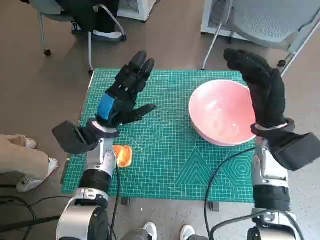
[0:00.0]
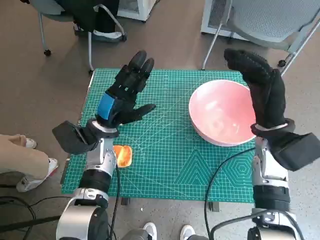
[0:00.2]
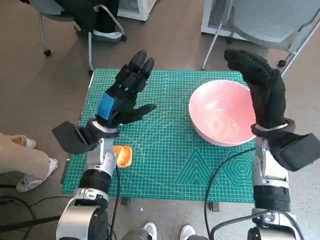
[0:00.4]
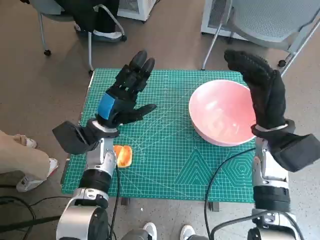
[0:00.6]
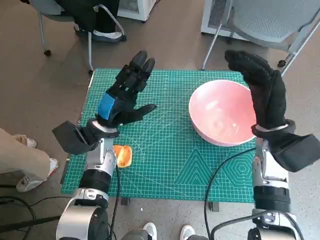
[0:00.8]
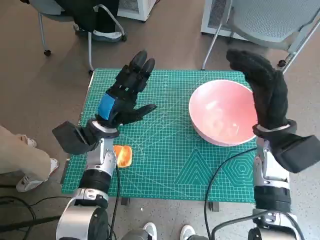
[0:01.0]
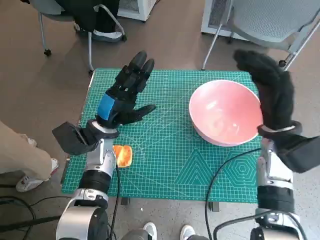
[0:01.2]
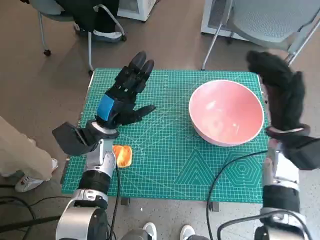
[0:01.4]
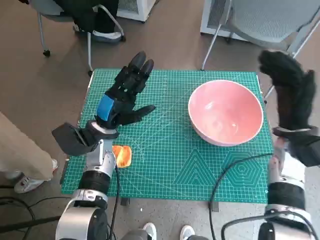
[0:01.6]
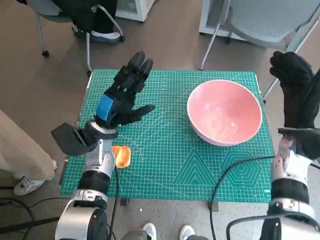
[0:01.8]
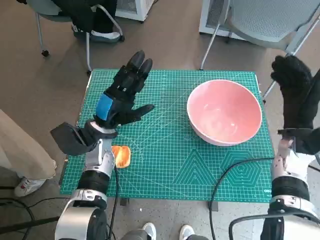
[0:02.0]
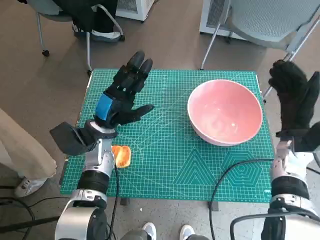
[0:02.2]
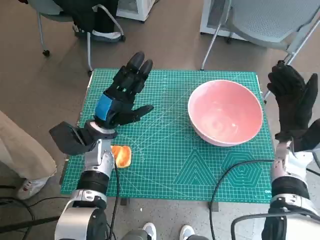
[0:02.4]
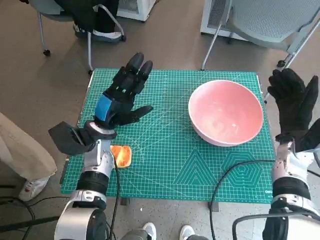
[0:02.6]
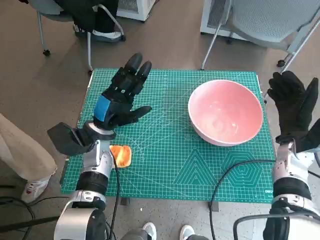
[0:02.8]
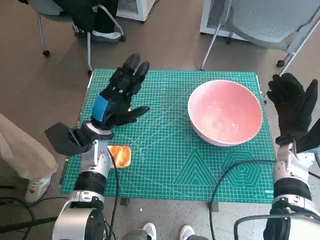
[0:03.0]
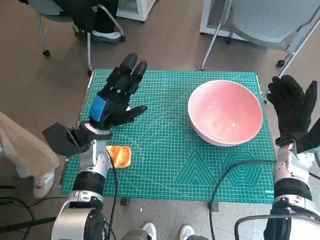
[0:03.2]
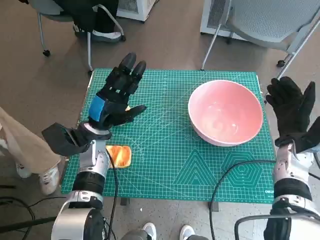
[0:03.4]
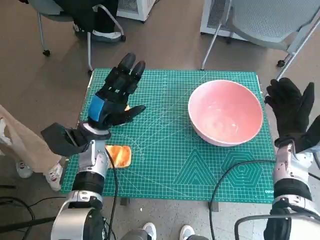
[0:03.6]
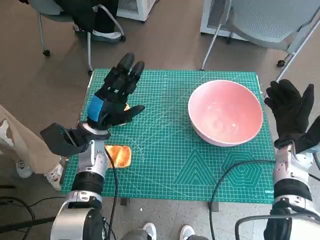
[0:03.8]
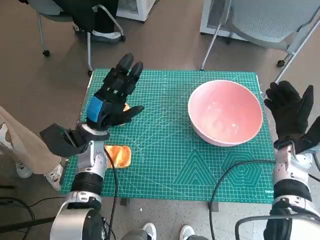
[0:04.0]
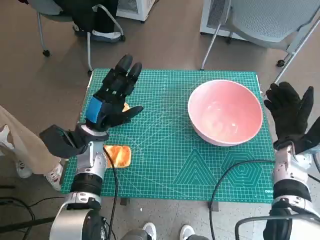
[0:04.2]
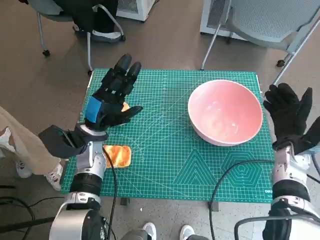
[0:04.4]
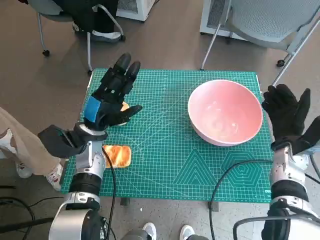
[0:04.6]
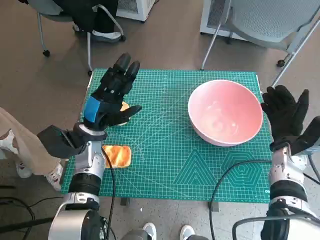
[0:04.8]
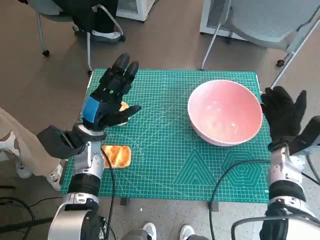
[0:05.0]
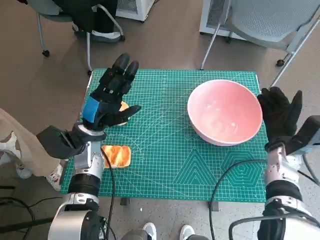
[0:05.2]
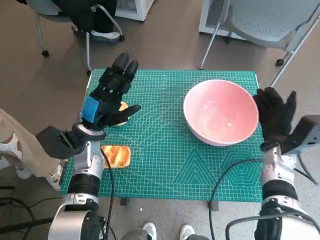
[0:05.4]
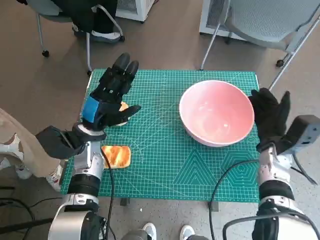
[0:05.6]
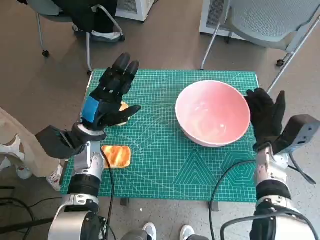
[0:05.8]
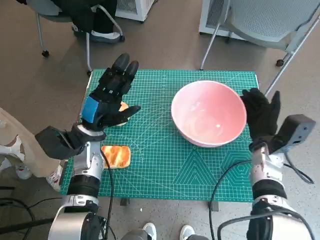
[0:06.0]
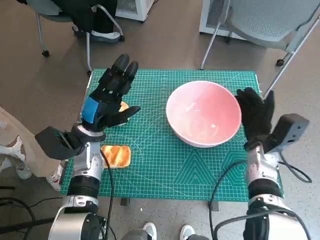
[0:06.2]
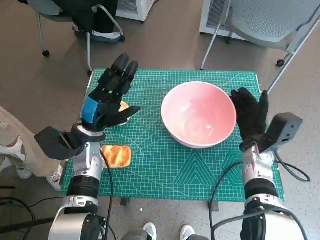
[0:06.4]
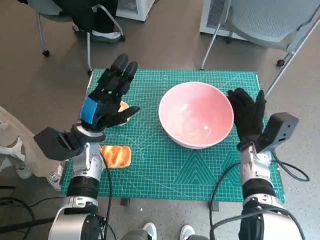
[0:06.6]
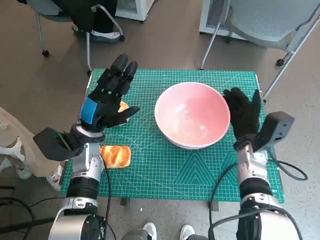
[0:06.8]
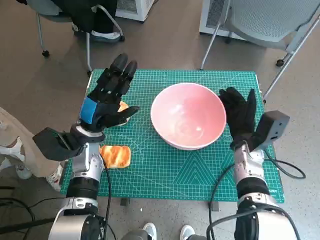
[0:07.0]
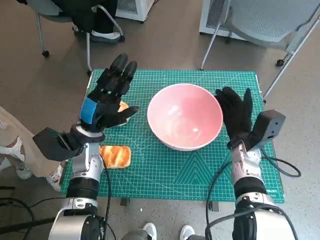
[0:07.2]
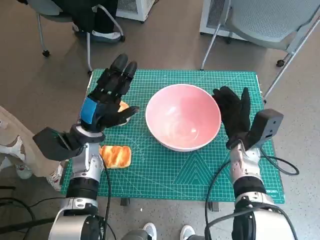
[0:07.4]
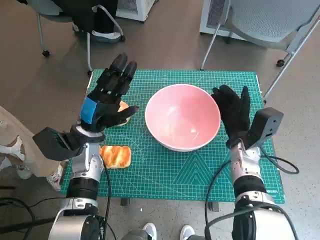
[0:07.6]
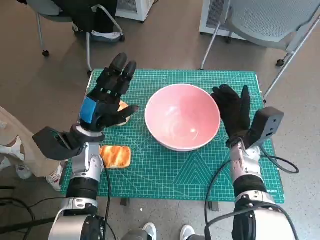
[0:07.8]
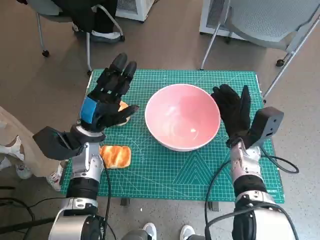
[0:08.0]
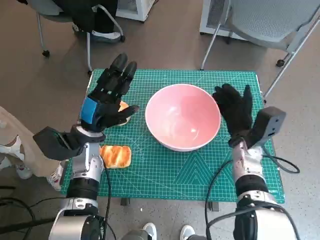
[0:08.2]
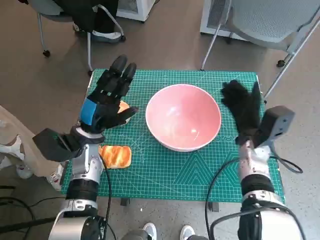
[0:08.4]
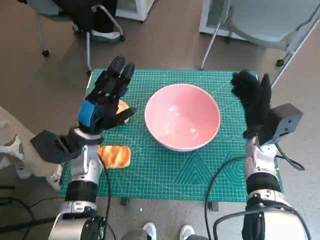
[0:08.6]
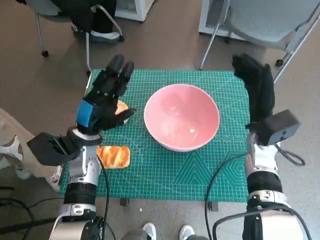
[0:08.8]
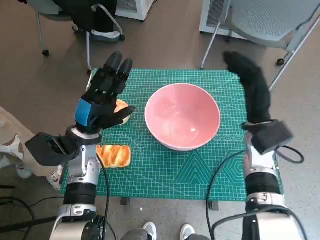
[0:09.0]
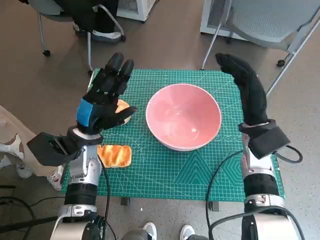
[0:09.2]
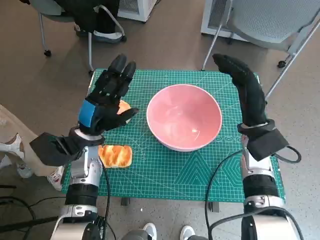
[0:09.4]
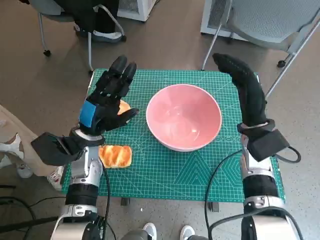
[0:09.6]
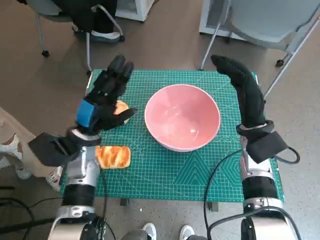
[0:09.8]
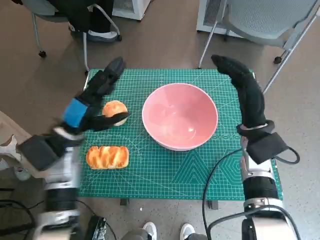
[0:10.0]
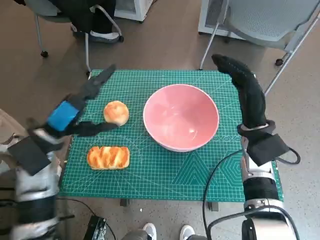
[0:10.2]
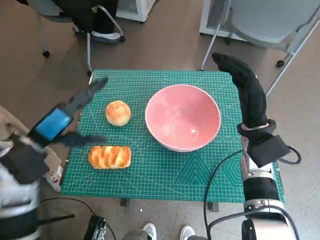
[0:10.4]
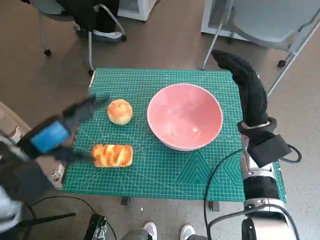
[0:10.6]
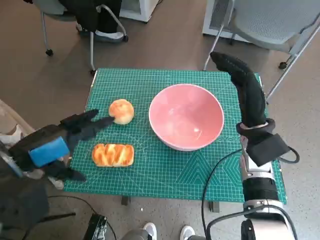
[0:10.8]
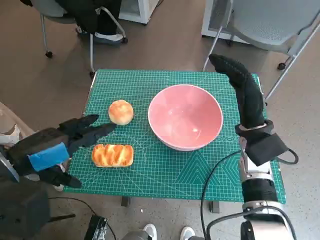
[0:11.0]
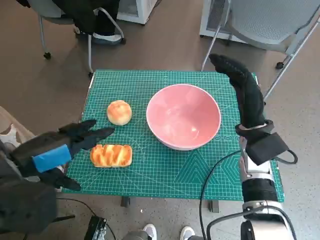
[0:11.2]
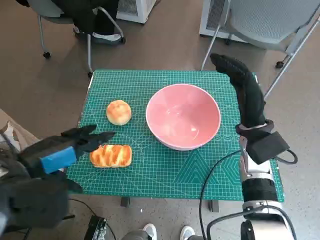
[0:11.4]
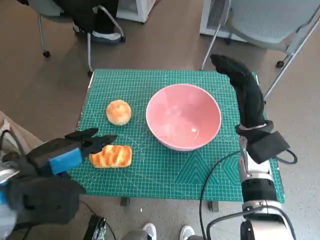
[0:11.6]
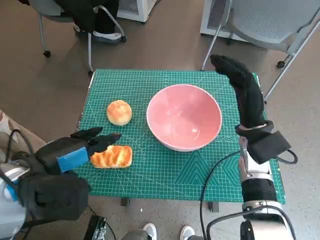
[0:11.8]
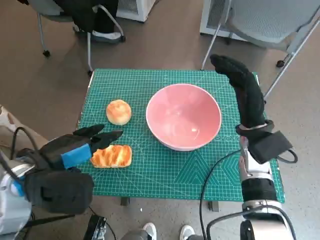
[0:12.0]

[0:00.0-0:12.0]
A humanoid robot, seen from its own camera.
Step, 0:00.0 to 0:08.2: Move the pink bowl to the center of table with right hand.
0:01.6 to 0:03.0: The right hand moves roughly 5 cm.
0:03.0 to 0:04.4: The hands make only small movements.
0:06.0 to 0:07.6: The right hand goes roughly 5 cm to the left.
0:07.6 to 0:09.0: The right hand moves upward, about 5 cm.
0:09.0 to 0:10.4: The left hand moves upward, to the left and backward, roughly 10 cm.
0:10.4 to 0:12.0: The left hand ends up about 5 cm from where it was.

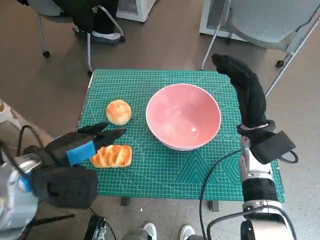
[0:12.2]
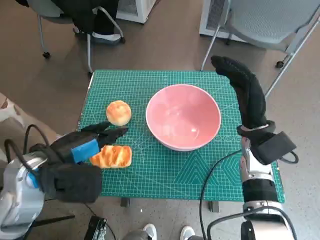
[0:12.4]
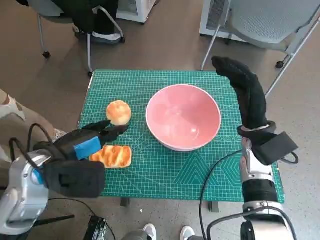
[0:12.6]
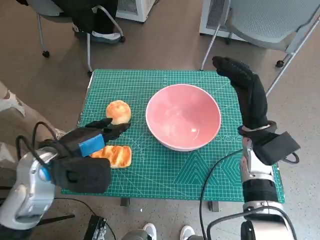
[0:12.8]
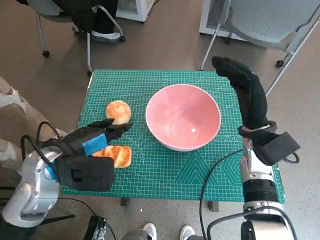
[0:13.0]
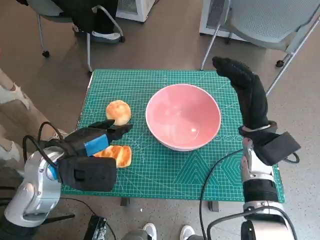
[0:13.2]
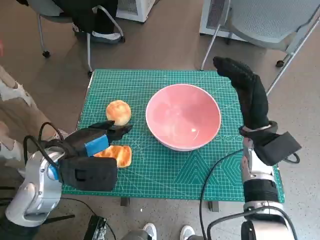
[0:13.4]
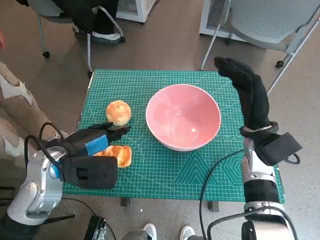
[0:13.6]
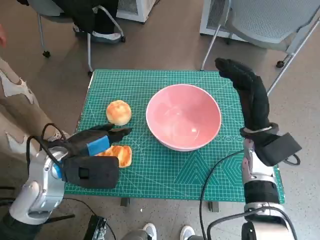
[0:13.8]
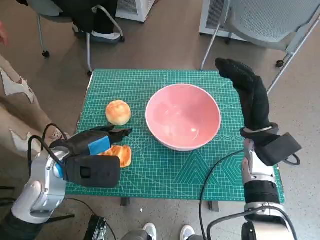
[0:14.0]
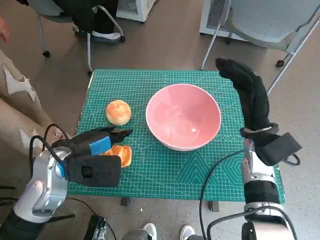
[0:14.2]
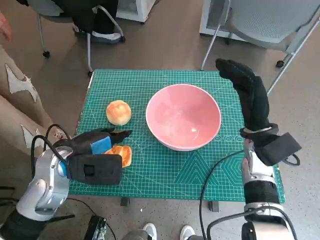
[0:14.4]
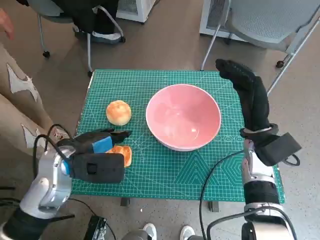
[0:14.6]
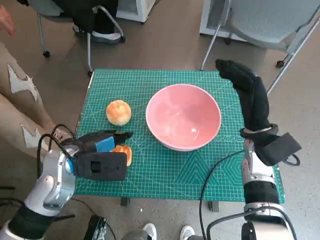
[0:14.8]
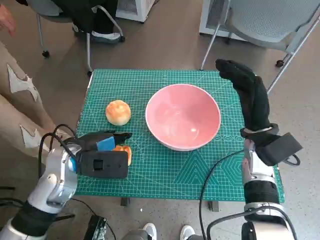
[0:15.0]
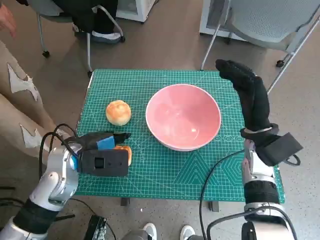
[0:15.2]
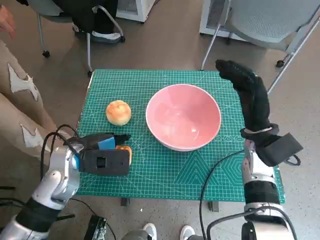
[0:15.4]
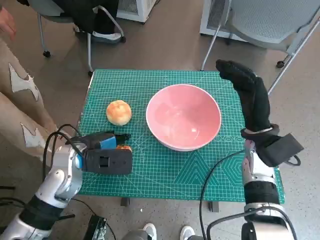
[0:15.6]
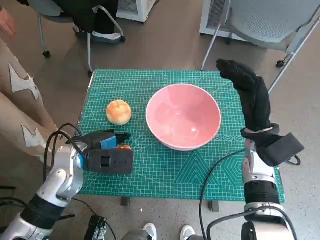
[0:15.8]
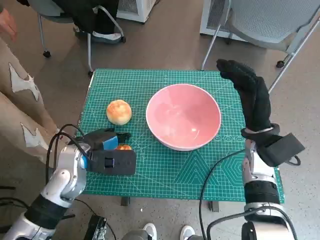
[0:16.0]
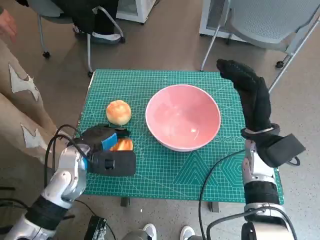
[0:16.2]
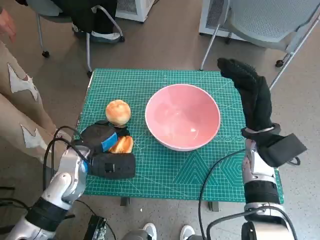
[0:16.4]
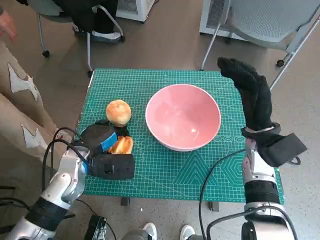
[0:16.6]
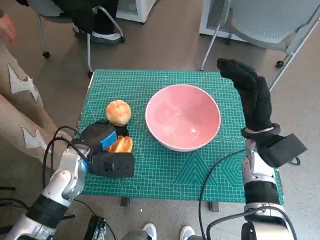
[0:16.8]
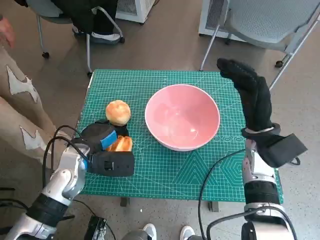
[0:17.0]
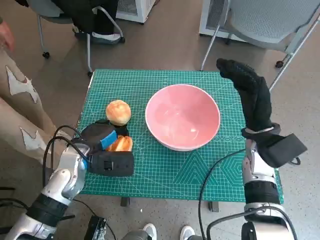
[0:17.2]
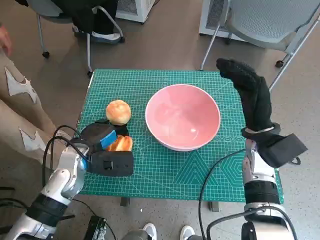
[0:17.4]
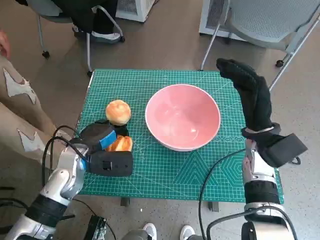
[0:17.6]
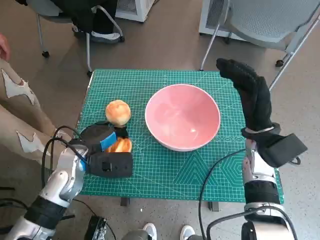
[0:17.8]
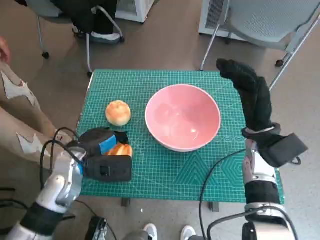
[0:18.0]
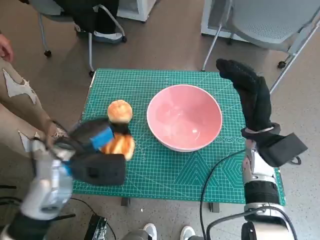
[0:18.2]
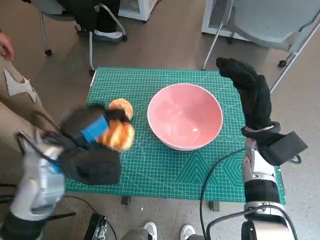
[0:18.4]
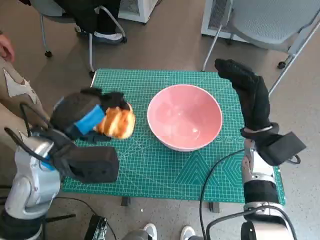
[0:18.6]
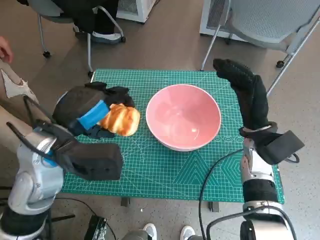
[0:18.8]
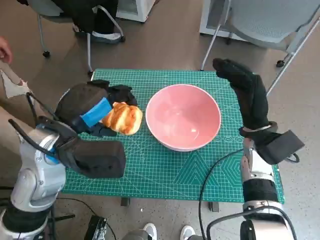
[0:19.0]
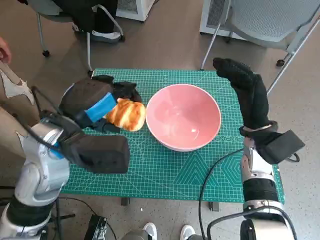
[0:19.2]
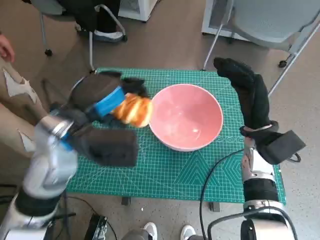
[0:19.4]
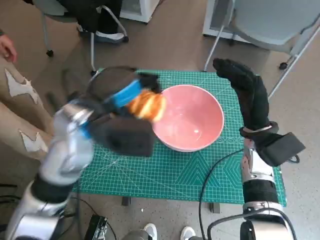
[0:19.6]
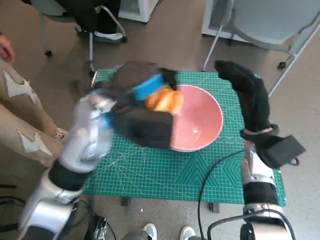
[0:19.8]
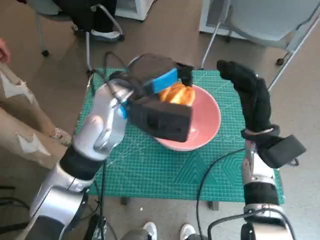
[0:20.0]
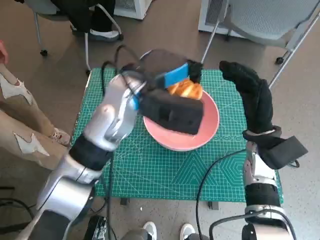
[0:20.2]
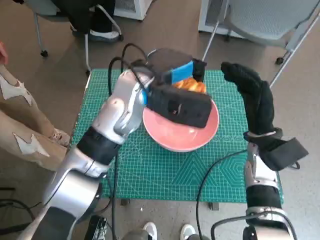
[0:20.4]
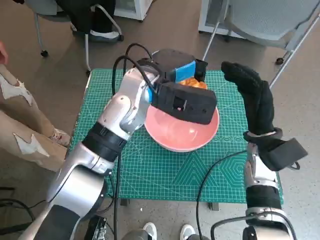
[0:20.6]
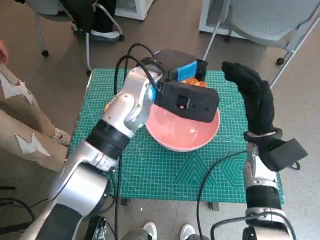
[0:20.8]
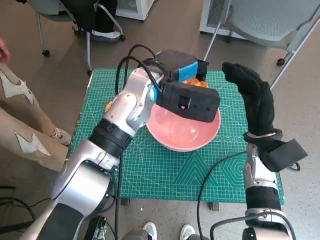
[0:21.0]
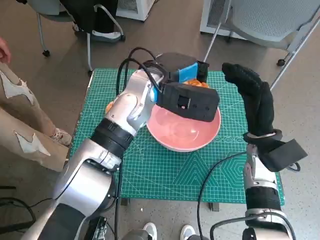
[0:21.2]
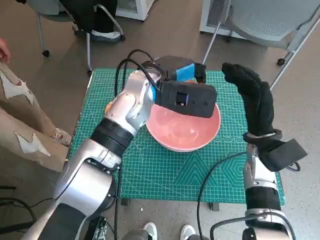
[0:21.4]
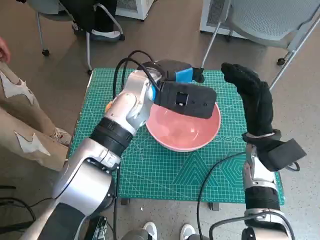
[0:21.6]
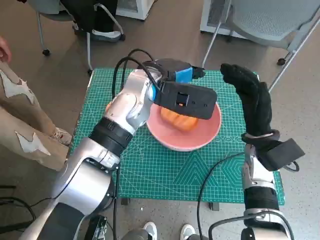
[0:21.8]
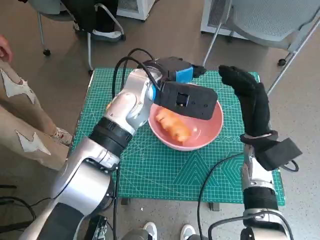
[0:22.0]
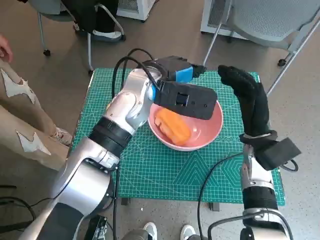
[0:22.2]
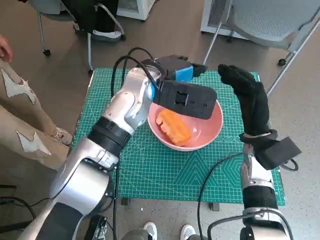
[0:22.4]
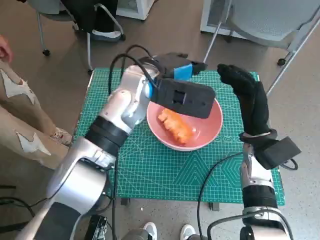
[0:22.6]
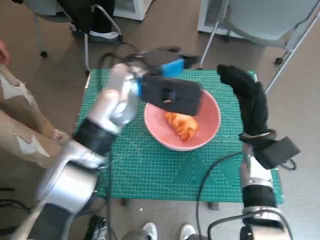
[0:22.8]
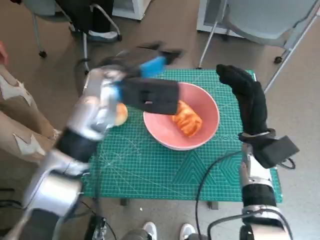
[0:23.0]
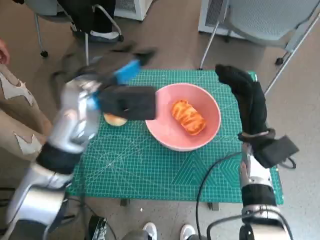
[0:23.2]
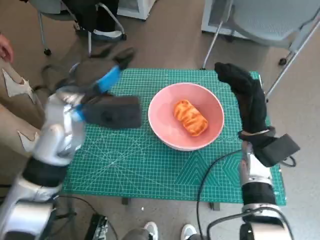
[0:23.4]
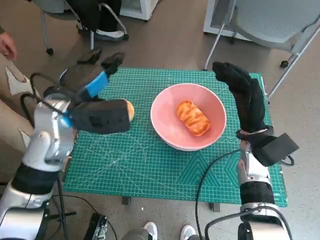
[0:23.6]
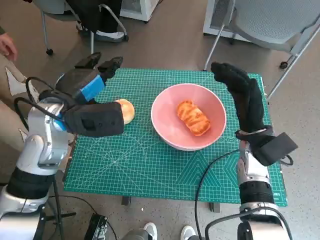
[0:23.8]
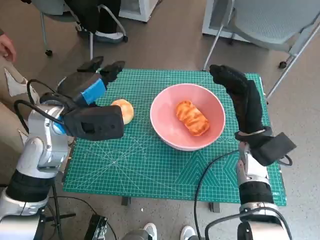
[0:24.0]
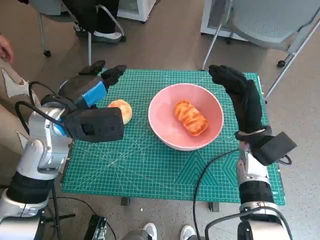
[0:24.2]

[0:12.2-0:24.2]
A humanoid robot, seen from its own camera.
Step, 0:12.2 to 0:16.4: Grasp the long bread with left hand.
Step, 0:16.6 to 0:21.8: Place the long bread in pink bowl with left hand.
0:12.2 to 0:13.8: The hands move only a little.
0:13.8 to 0:15.2: The hands make only small movements.
0:15.2 to 0:18.2: The hands make only small movements.
0:18.2 to 0:19.8: The left hand is displaced upward and to the right by roughly 15 cm.
0:19.8 to 0:21.2: The left hand heads to the right and forward, covering roughly 10 cm.
0:21.2 to 0:22.6: The hands stay close to where they were, moving slightly.
0:22.6 to 0:24.2: The left hand travels to the left and backward by some 15 cm.
